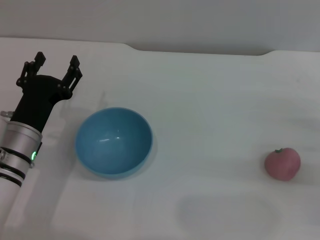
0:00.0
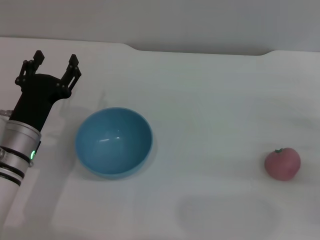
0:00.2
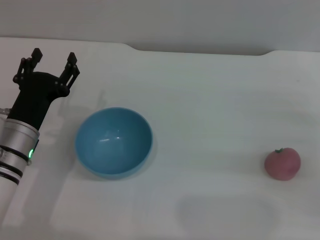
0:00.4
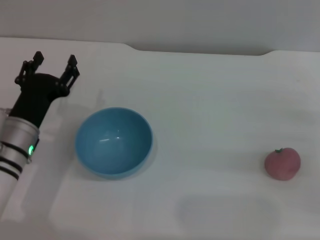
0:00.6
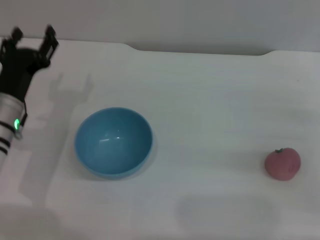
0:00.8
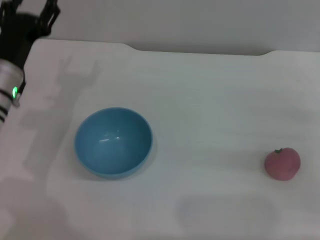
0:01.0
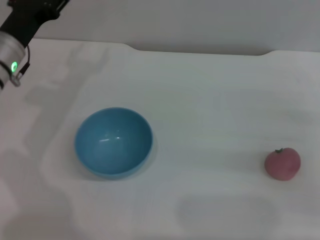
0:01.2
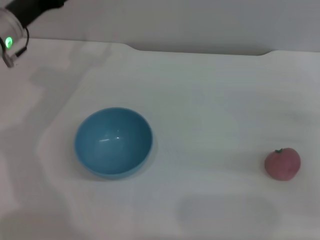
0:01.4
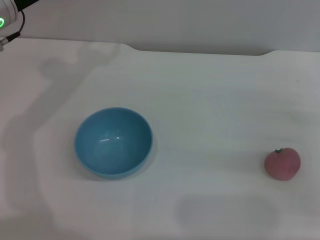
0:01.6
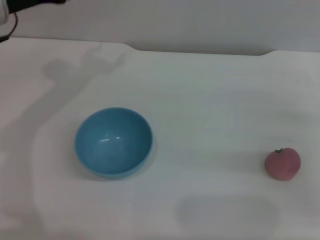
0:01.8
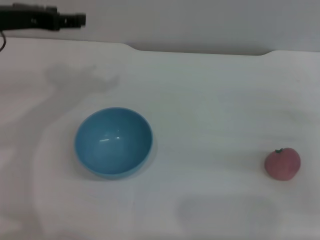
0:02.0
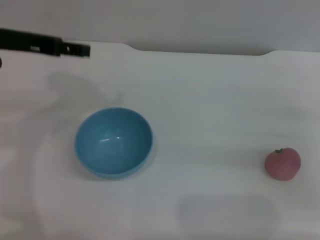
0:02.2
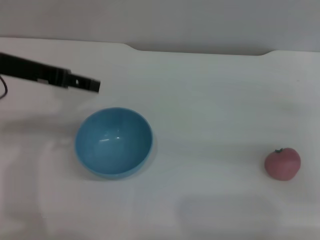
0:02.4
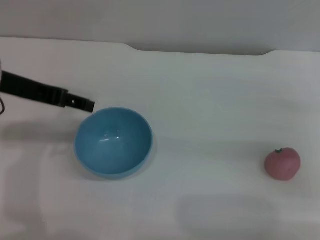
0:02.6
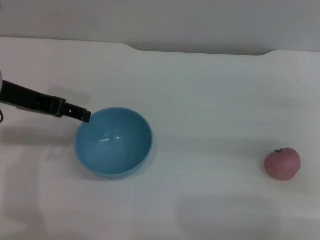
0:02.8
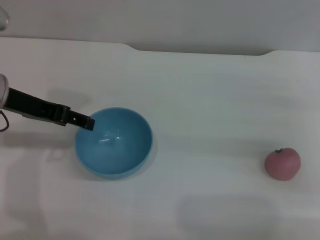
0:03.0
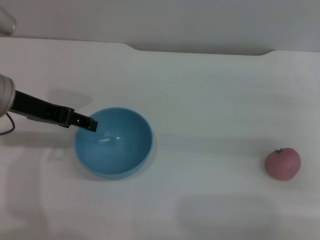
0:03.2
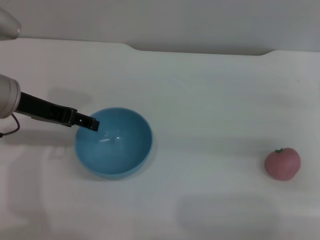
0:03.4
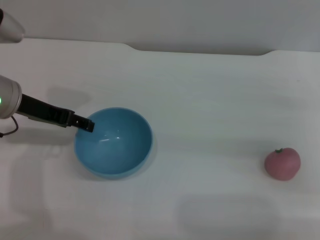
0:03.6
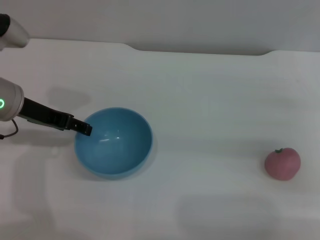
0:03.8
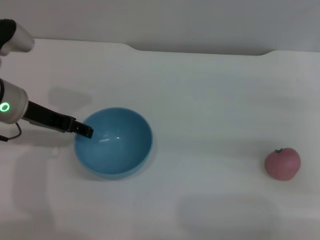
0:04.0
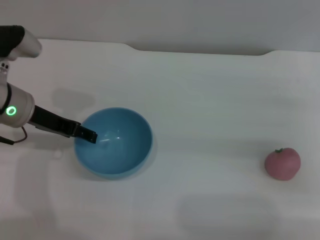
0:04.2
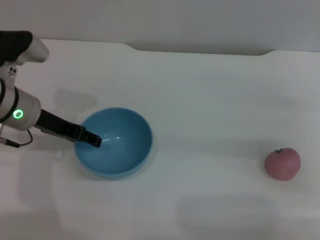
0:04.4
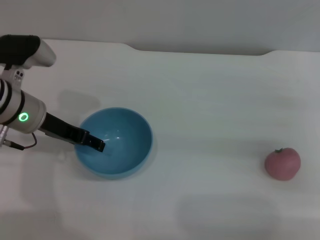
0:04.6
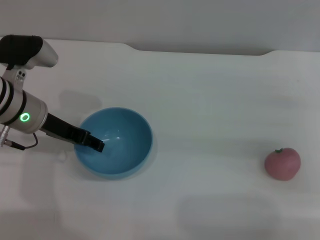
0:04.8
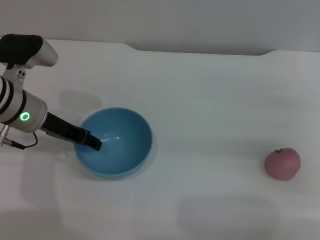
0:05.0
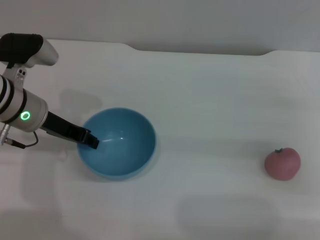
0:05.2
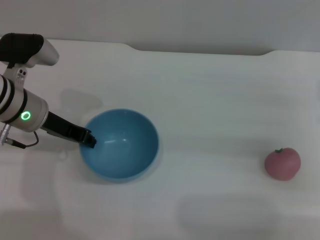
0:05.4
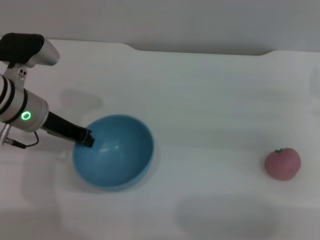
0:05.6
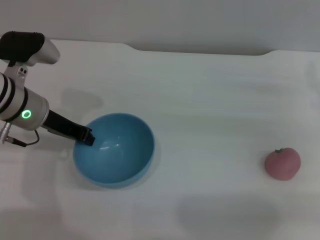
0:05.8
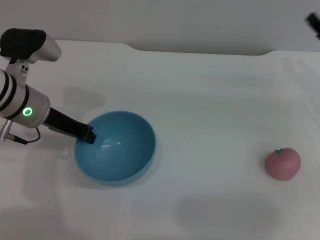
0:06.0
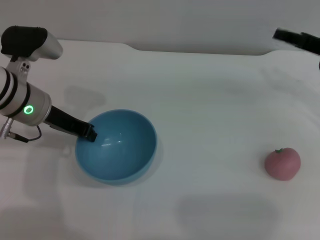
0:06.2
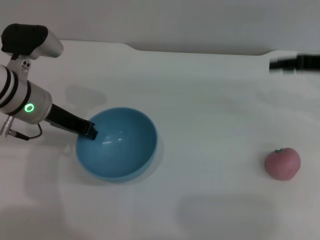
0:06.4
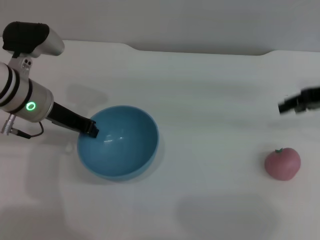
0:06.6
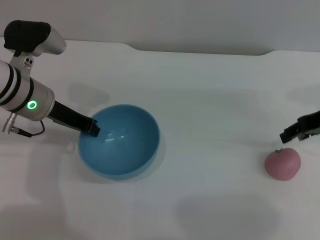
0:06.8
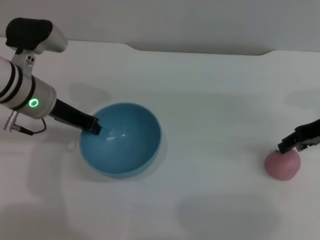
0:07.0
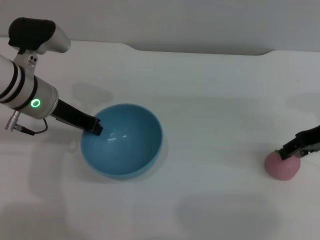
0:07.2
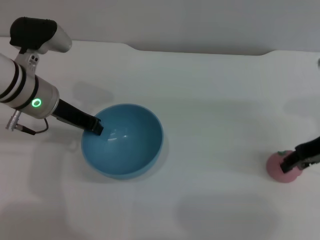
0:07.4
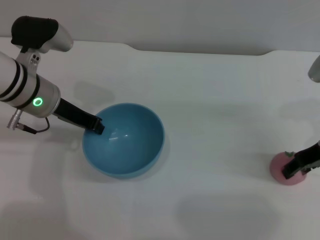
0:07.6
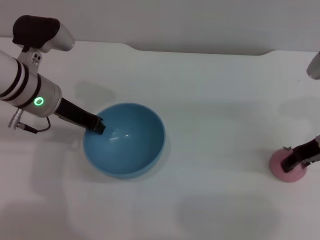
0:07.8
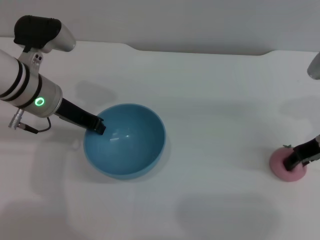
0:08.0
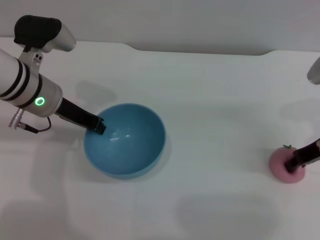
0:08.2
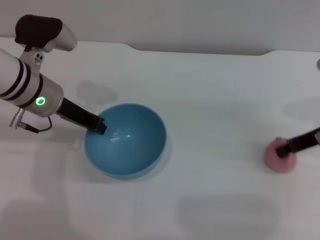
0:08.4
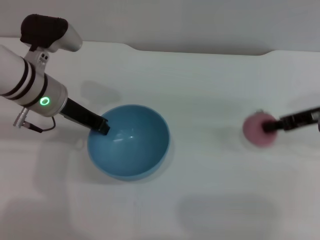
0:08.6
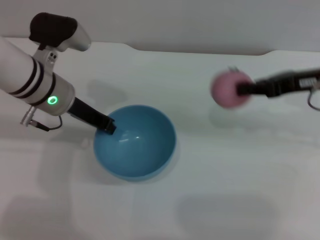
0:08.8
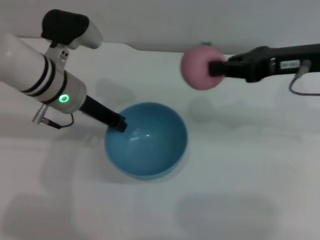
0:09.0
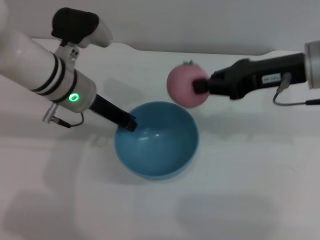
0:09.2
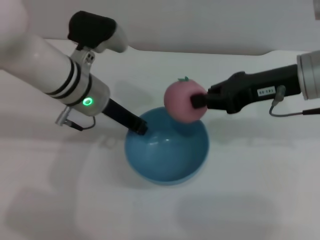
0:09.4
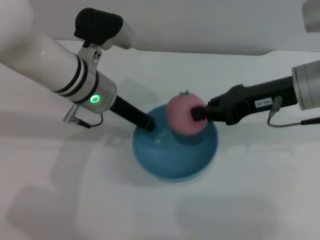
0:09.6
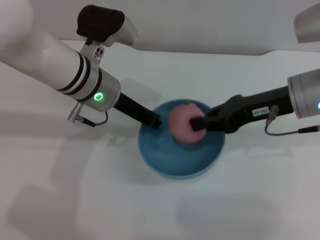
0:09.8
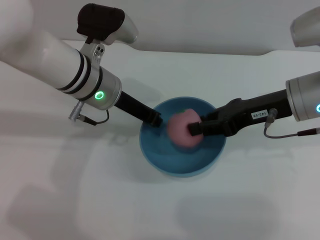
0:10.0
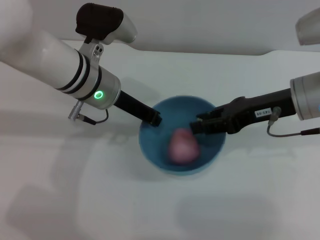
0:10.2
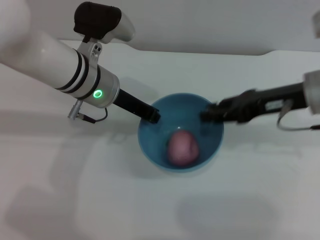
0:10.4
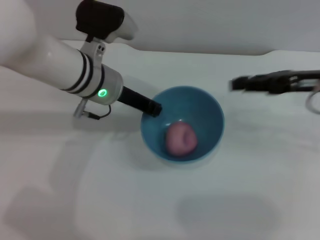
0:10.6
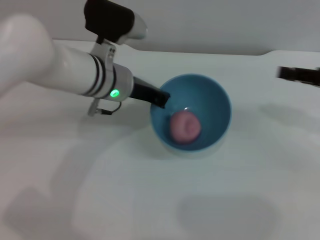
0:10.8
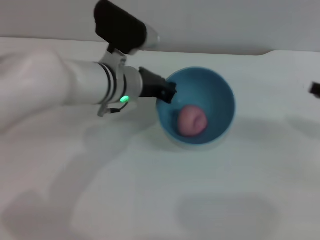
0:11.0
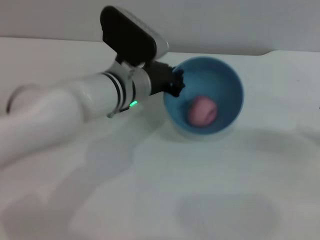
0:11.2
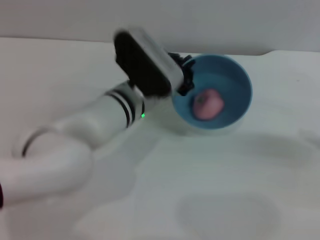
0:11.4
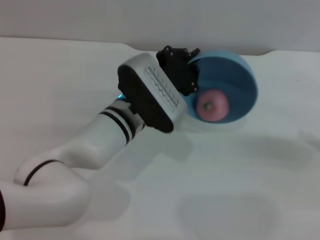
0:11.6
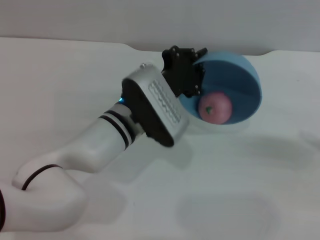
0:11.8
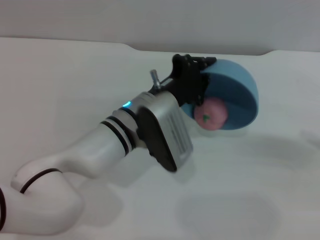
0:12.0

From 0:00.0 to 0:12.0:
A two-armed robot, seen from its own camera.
Task of the whole recording: put the peach into the blue bowl and pour it out repeatedly.
Step, from 0:00.0 to 0:07.2: Pick up the bowl with the left gripper.
Step, from 0:07.4 to 0:08.6: Pick up the peach with the right gripper.
Step, from 0:08.8 to 0:10.4: Place the peach into the bowl.
From 0:00.0 to 0:01.6: The left gripper travels upward and forward by about 20 cm.
From 0:01.6 to 0:03.0: The left gripper moves backward, about 10 cm.
From 0:03.0 to 0:04.4: The left gripper goes about 5 cm downward.
From 0:04.4 to 0:06.0: The left gripper closes. The right gripper heads forward, covering approximately 5 cm.
From 0:06.0 to 0:07.6: The right gripper travels upward and back again, roughly 10 cm each way.
From 0:07.6 to 0:09.0: The right gripper moves upward and to the left, roughly 10 cm, and closes.
From 0:09.0 to 0:10.4: The right gripper opens up.
From 0:10.4 to 0:12.0: The left gripper shifts about 10 cm downward, to the right and backward, while the right gripper shifts roughly 20 cm to the right and backward.

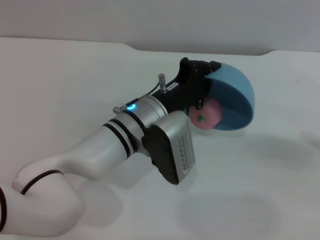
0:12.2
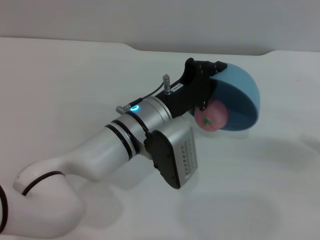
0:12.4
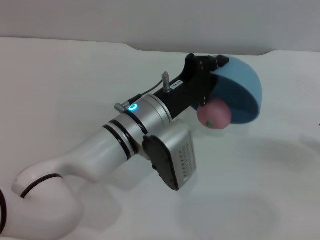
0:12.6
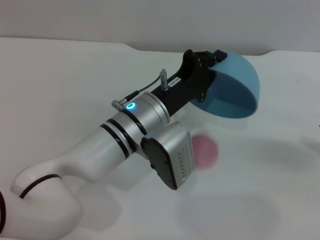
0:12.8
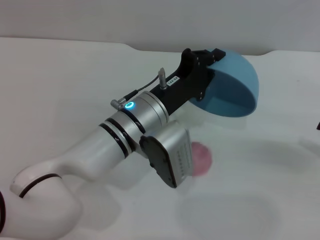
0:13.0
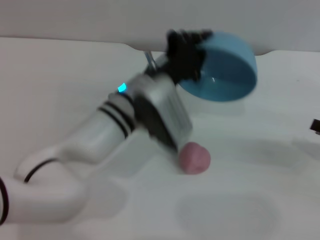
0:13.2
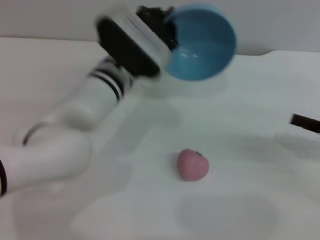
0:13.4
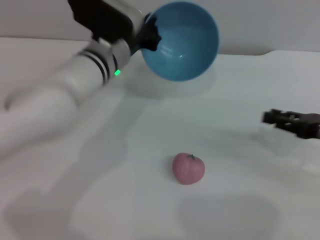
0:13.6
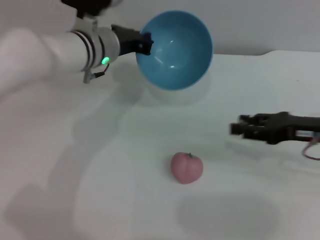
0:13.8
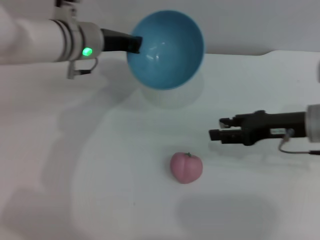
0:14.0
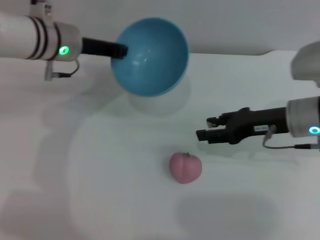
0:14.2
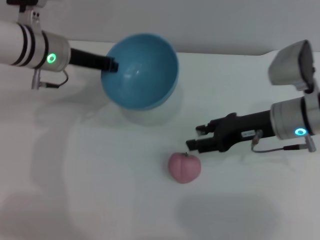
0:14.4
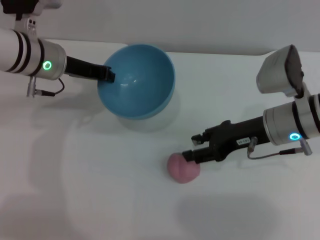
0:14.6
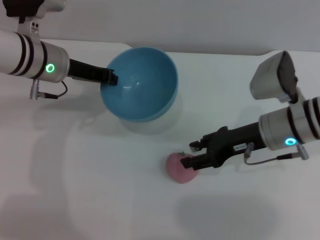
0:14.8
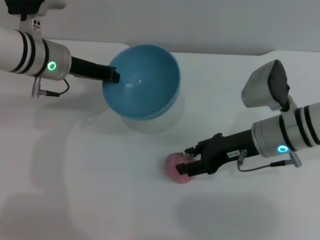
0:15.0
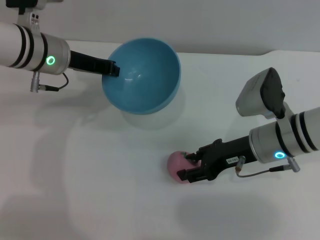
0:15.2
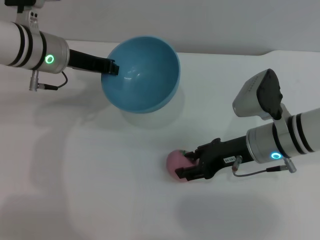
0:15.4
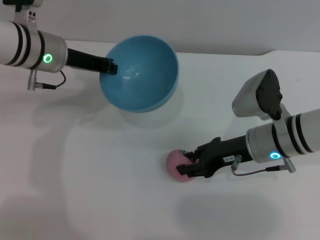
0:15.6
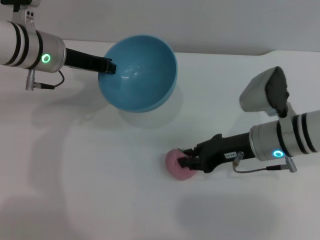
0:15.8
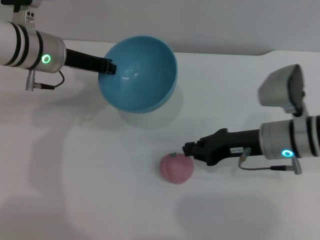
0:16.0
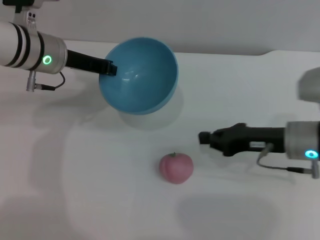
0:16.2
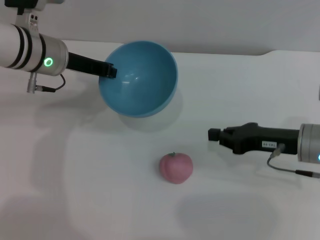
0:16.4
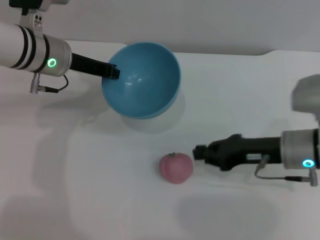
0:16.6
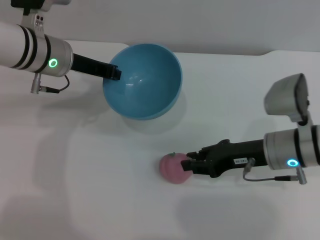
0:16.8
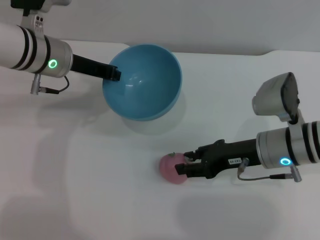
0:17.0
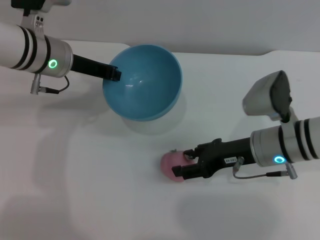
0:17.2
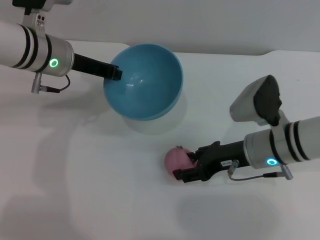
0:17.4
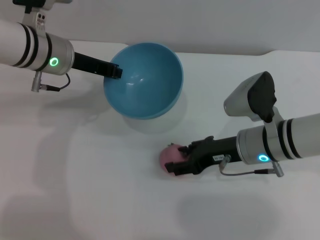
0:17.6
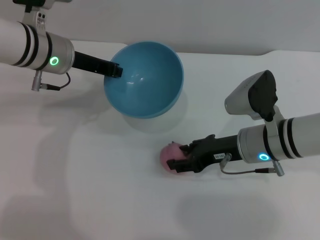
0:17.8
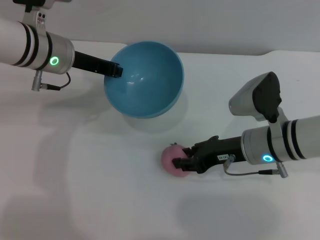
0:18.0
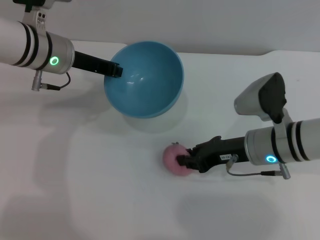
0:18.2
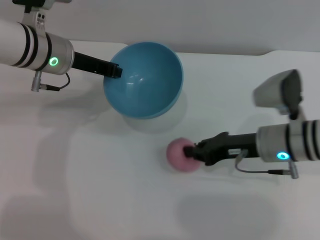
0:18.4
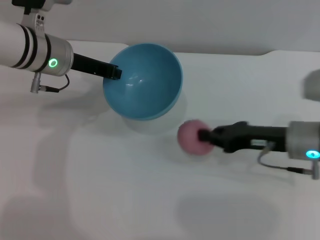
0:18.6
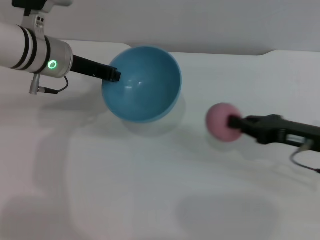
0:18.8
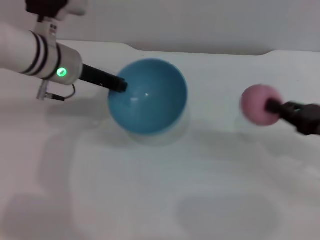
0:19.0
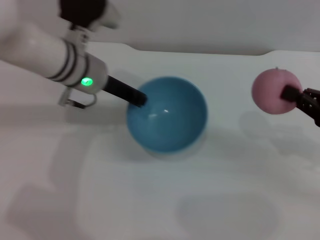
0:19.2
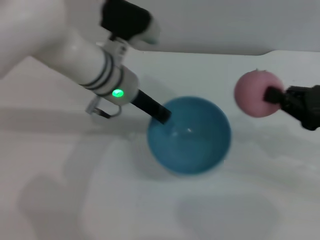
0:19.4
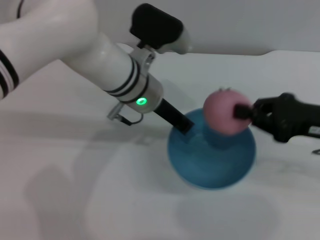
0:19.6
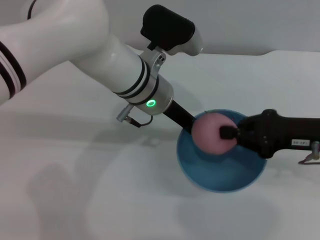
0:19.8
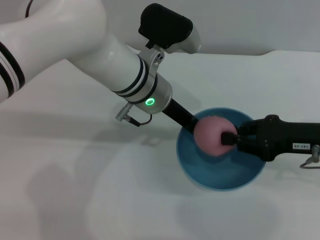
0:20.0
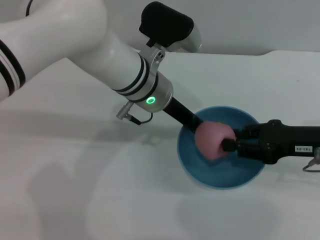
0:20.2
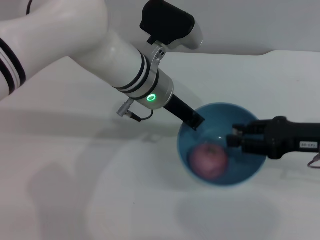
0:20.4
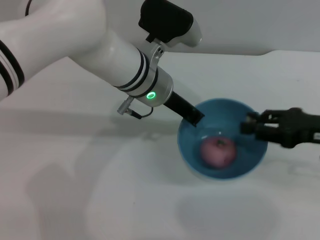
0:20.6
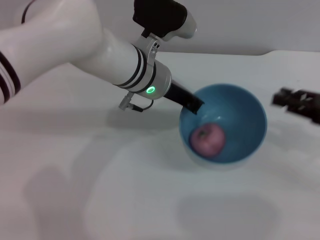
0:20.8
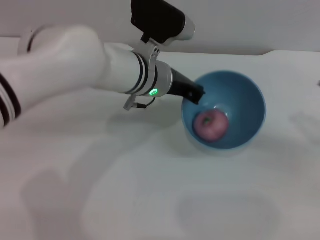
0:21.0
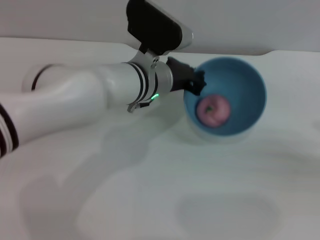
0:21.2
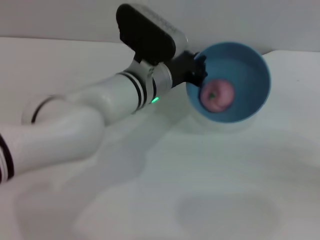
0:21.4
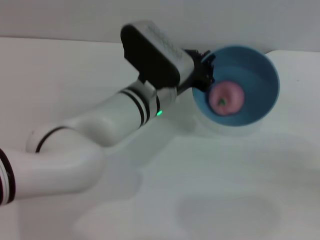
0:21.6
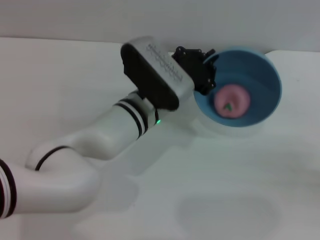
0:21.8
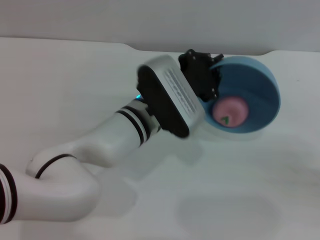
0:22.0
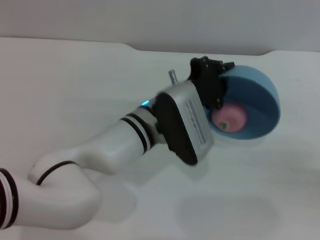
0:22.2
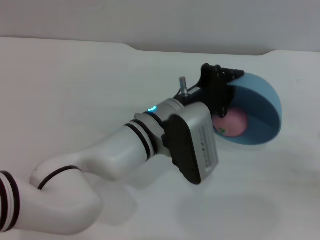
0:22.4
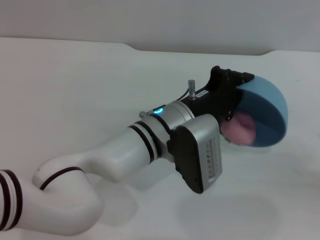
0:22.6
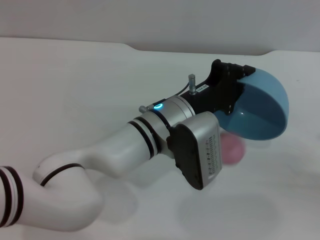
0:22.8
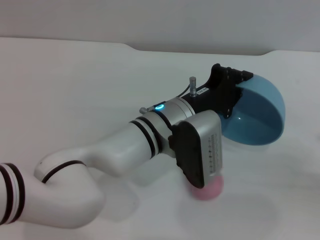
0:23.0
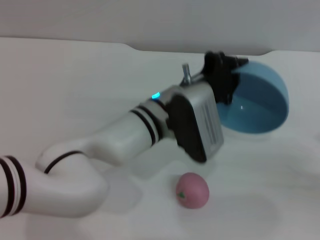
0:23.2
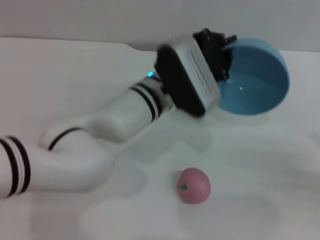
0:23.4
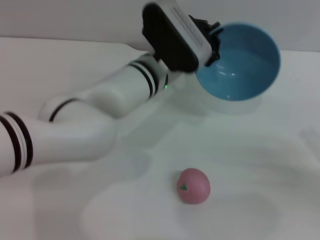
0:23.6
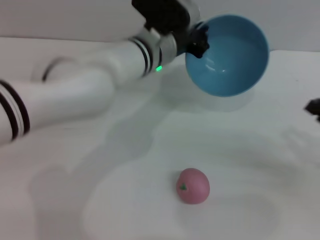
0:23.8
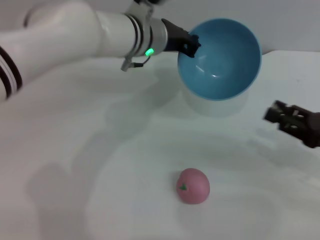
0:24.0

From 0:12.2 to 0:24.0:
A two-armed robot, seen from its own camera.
Task of the whole recording: put the peach into the blue bowl and pour it out repeatedly.
Step, from 0:13.4 to 0:18.8: Pick up the peach with the right gripper.
Step, from 0:19.2 to 0:20.8: Place the peach into the bowl.
Step, from 0:21.0 to 0:23.2: Pour the peach out of bowl.
From 0:12.2 to 0:13.6: The left gripper moves forward, some 10 cm. The right gripper is displaced to the left by some 5 cm.
From 0:13.6 to 0:15.2: The right gripper is displaced to the left by about 15 cm. Meanwhile the left gripper heads to the left, covering about 10 cm.
From 0:15.2 to 0:16.6: The right gripper closes its fingers.
From 0:16.6 to 0:18.2: The right gripper opens its fingers.
From 0:18.2 to 0:19.6: The left gripper travels to the right by roughly 15 cm. The right gripper shifts some 15 cm to the right and upward, and closes its fingers.
From 0:19.6 to 0:21.0: The right gripper heads to the right, covering some 10 cm, and opens up.
From 0:21.0 to 0:22.6: Both grippers travel together backward, some 5 cm.
From 0:22.6 to 0:24.0: The right gripper moves to the left, approximately 10 cm. Meanwhile the left gripper moves forward and upward, approximately 15 cm.
